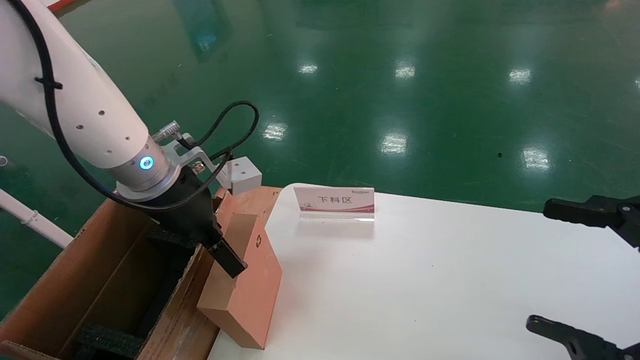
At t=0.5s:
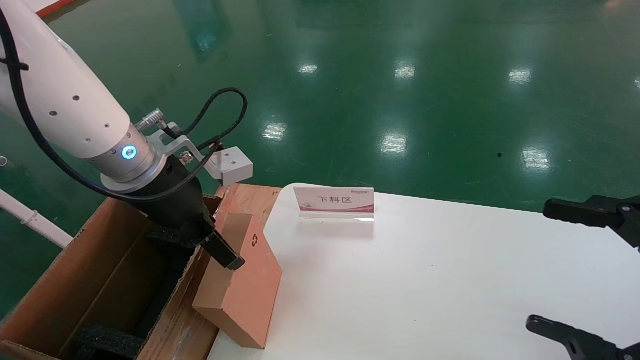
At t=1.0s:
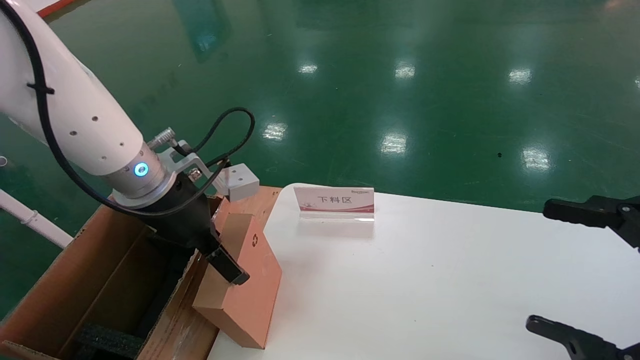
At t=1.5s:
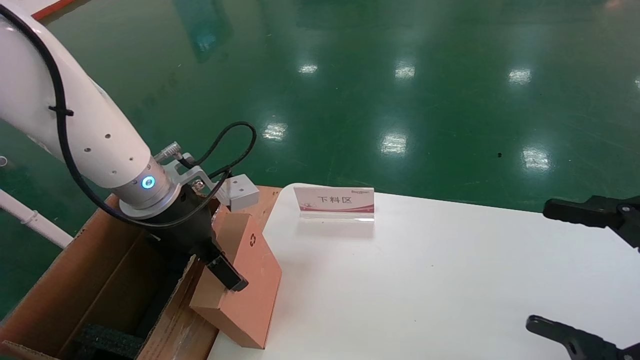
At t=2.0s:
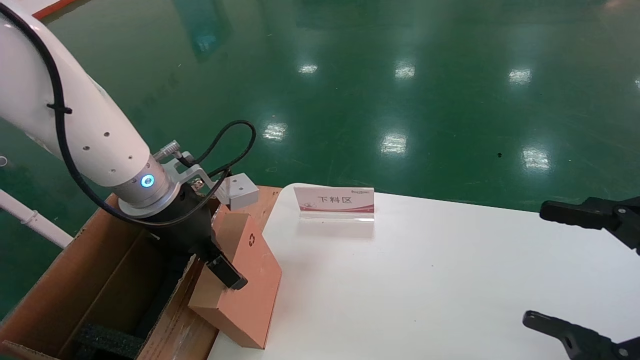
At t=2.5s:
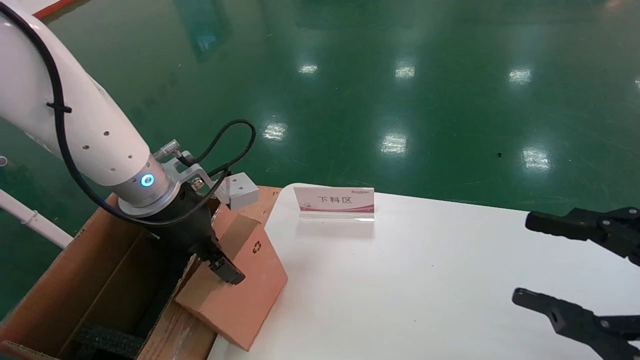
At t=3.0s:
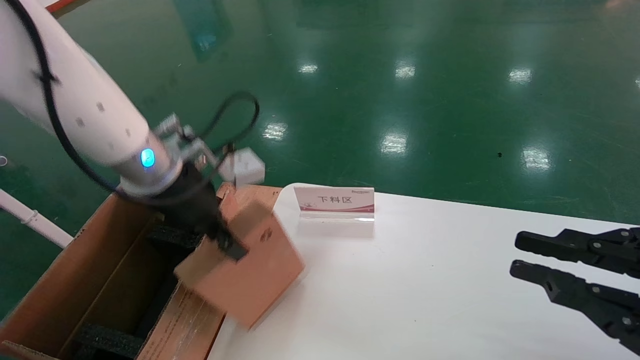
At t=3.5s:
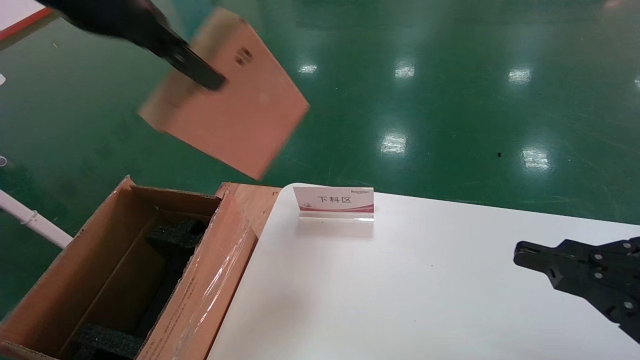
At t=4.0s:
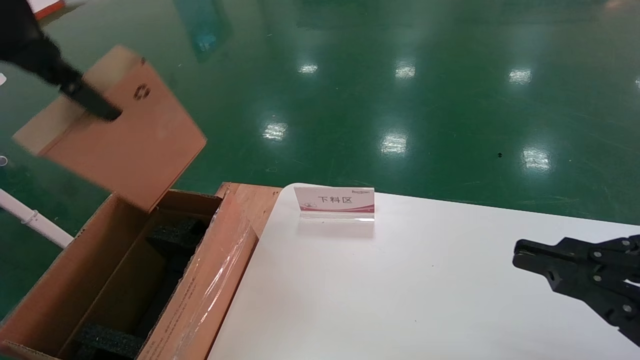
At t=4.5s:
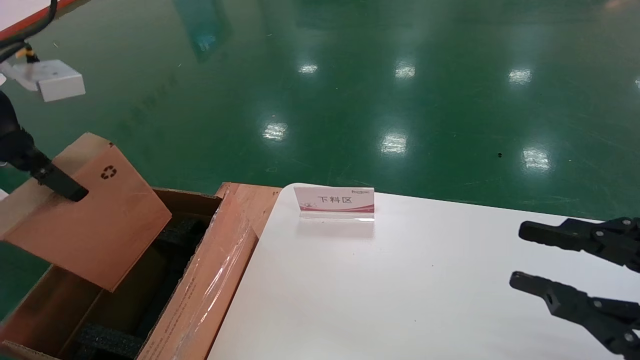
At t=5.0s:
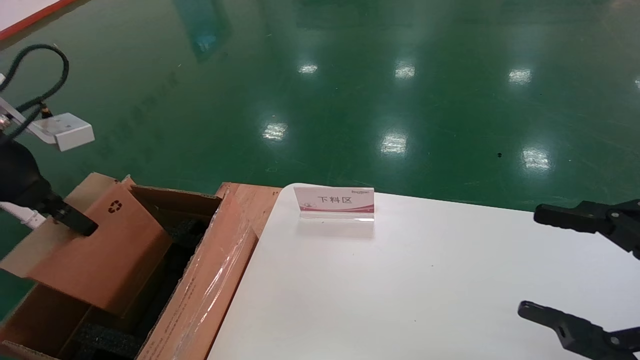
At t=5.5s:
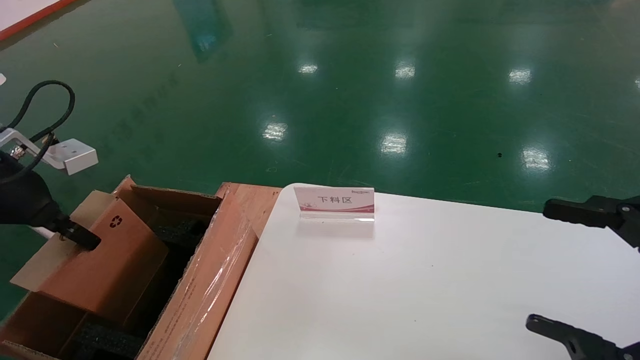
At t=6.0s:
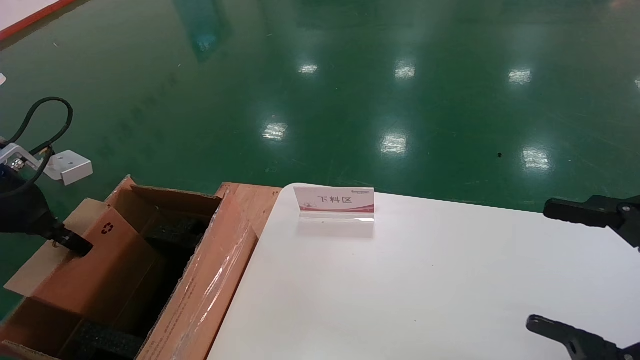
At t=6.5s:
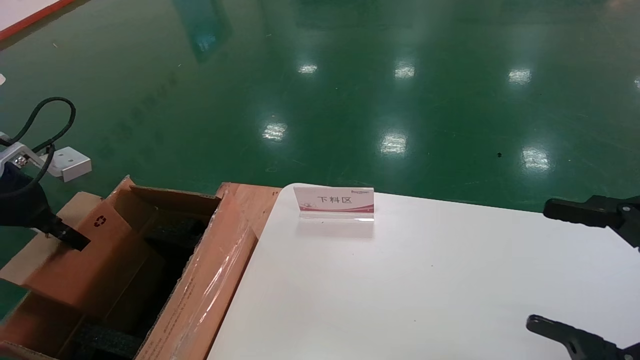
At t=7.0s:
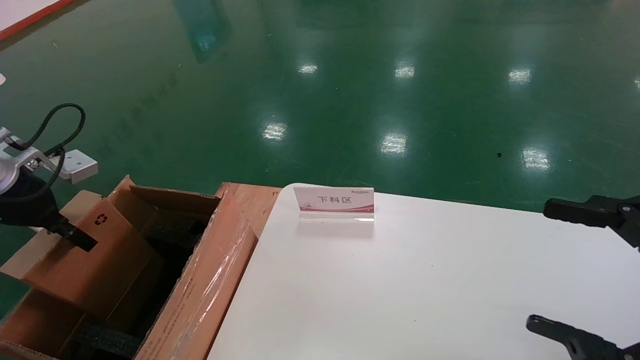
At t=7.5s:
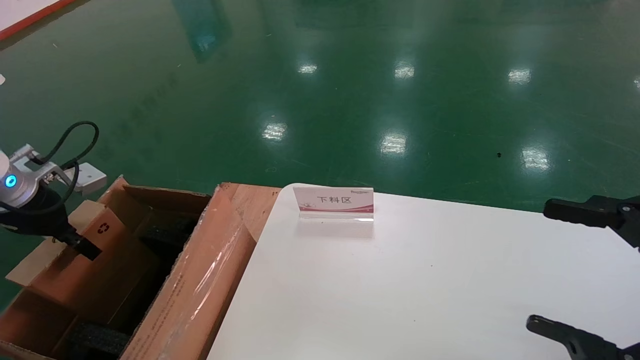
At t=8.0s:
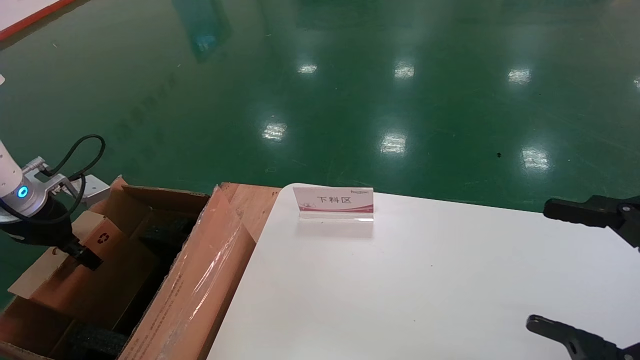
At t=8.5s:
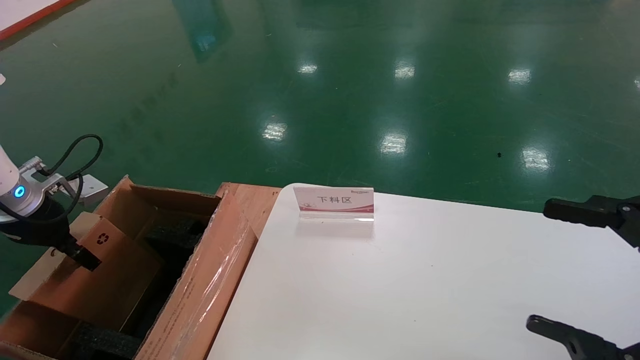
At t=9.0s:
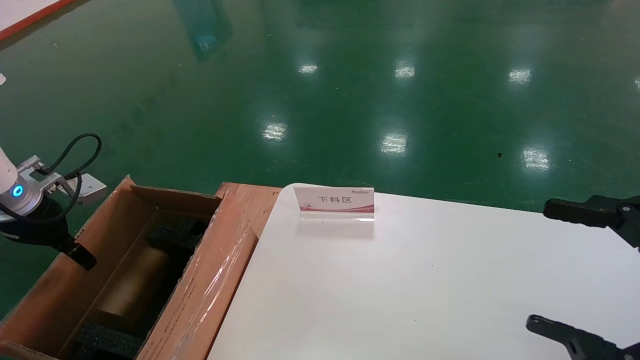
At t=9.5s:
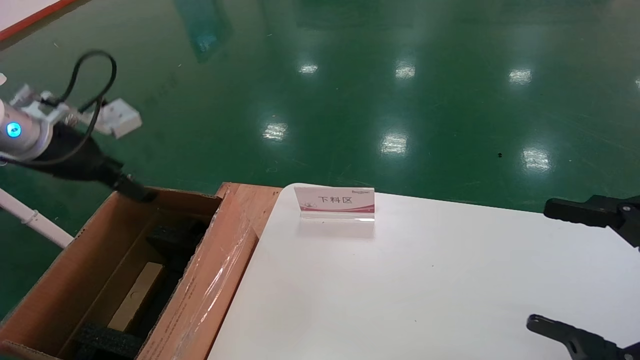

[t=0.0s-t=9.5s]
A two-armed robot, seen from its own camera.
Task of the whole recording: pick up the small cardboard box and load it into the large cardboard box.
Step, t=0.0s to t=2.5s: Pick up the mouse and power cord box.
Step, t=3.0s to t=9.0s: Place the mouse and power cord box into the case.
t=0.0s to t=2.0s: The grippers move only a little.
t=2.0s to t=4.0s: The right gripper closes; the left gripper travels upward by about 20 cm, and closes up.
t=4.0s to t=5.5s: The right gripper opens its fingers. Meanwhile the left gripper travels downward and to the left by about 20 cm.
t=5.5s to t=7.5s: The left gripper travels downward and forward by some 10 cm.
t=7.5s to t=9.5s: The left gripper is displaced upward and to the right by some 10 cm, and opens.

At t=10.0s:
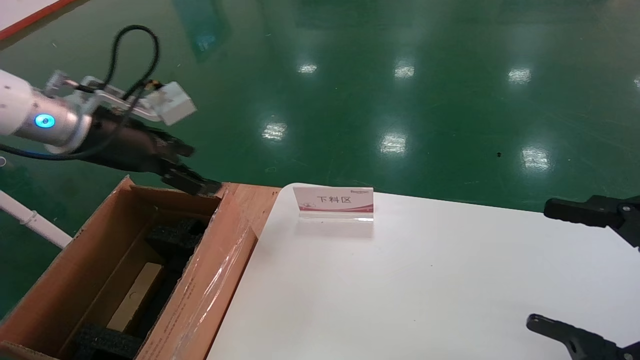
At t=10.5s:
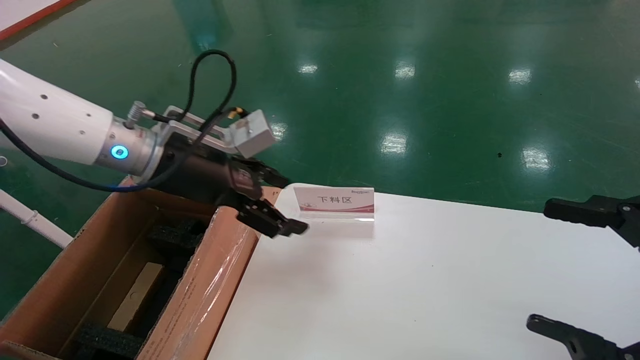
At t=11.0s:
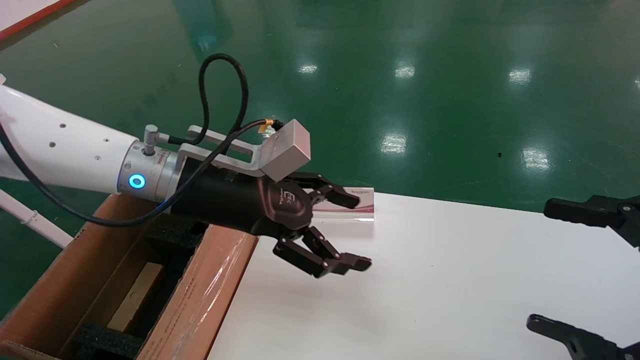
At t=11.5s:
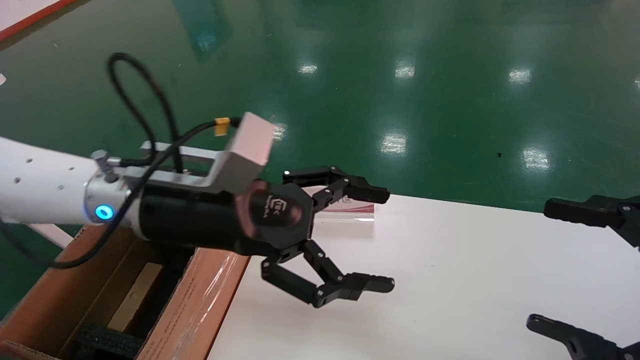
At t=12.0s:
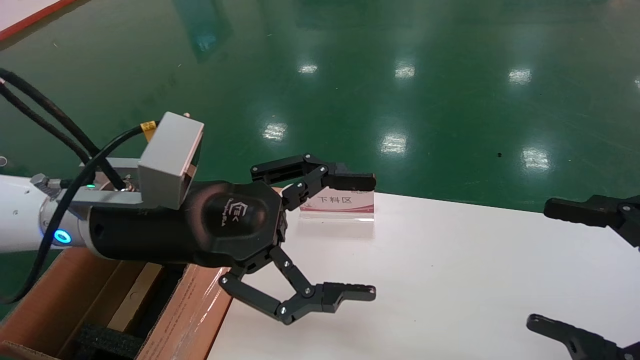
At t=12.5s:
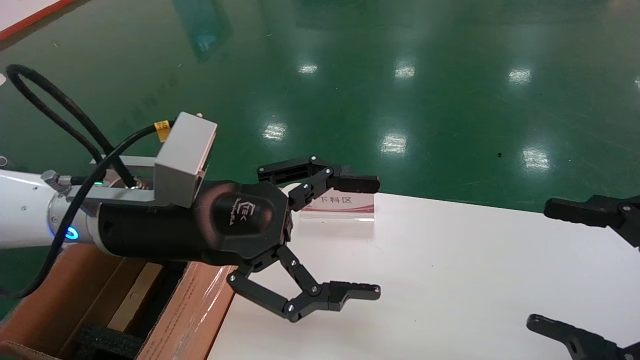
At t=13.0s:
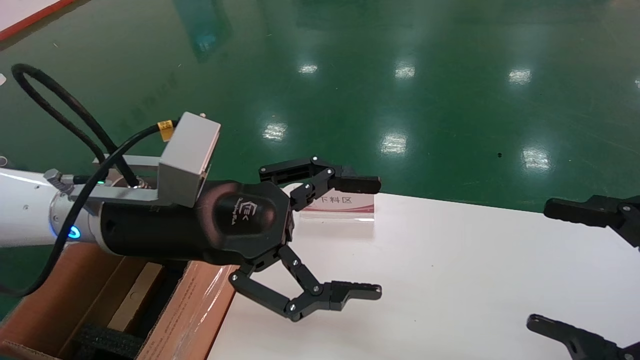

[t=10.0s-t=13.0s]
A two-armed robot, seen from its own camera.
Task of the whole recording: pick up the small cardboard box and load it into the large cardboard box.
t=10.0s to t=11.5s: The left gripper travels to the right and backward by some 15 cm.
t=11.5s to t=13.0s: There are only small adjustments of the grippers.
